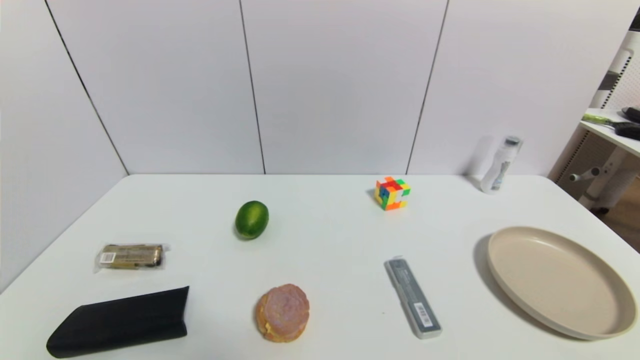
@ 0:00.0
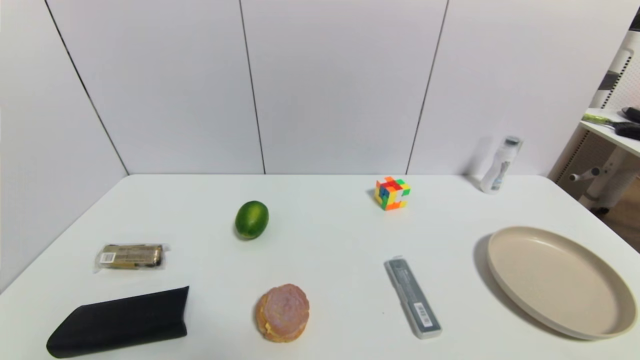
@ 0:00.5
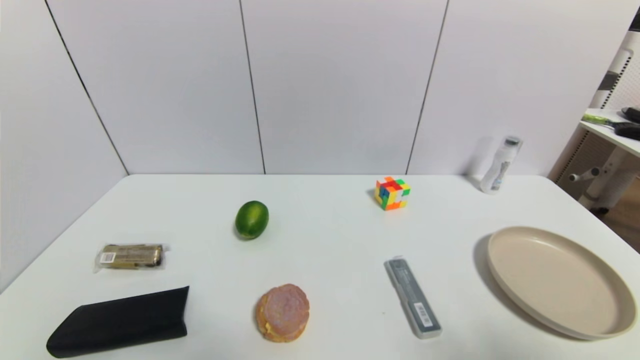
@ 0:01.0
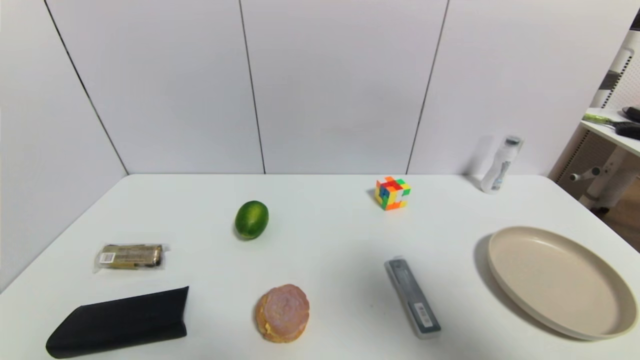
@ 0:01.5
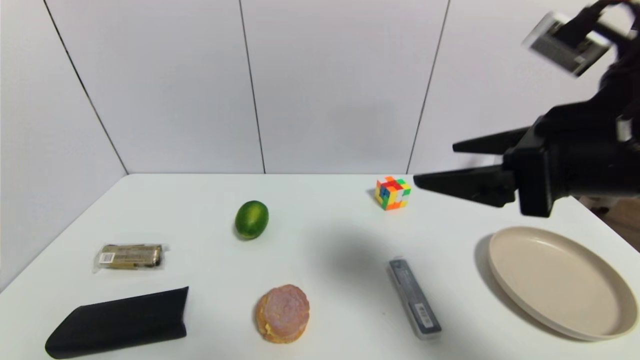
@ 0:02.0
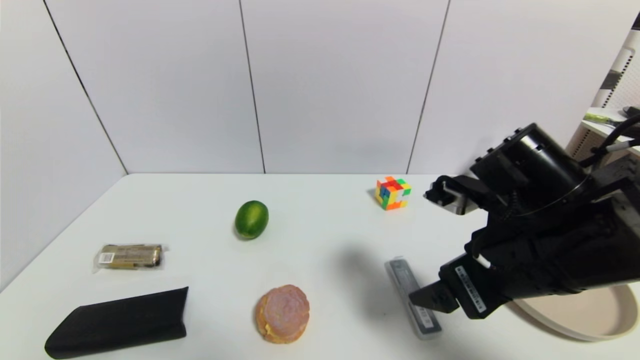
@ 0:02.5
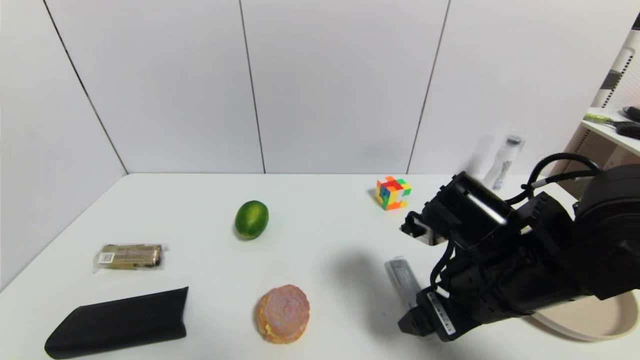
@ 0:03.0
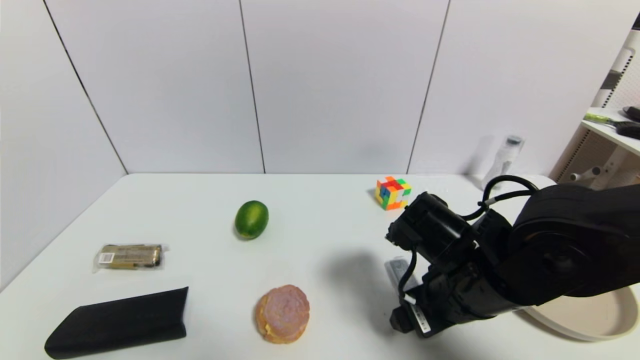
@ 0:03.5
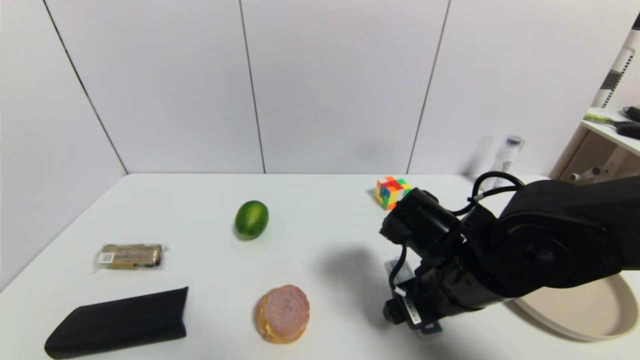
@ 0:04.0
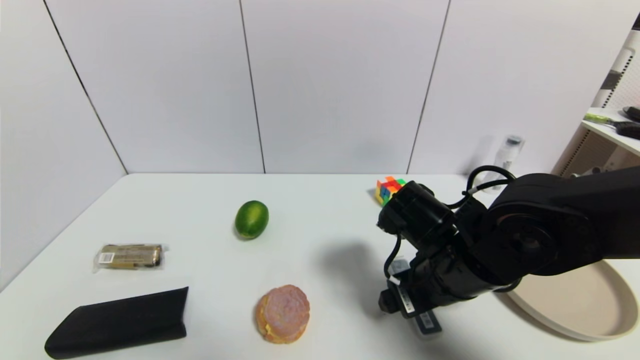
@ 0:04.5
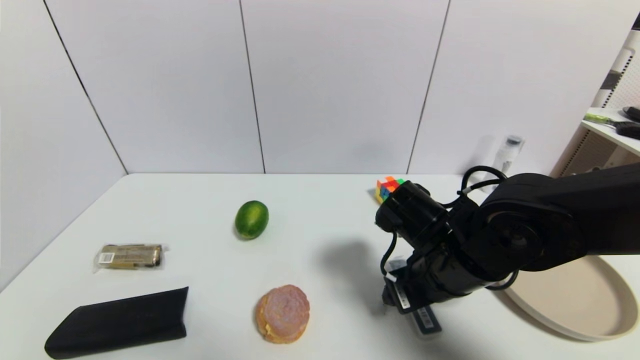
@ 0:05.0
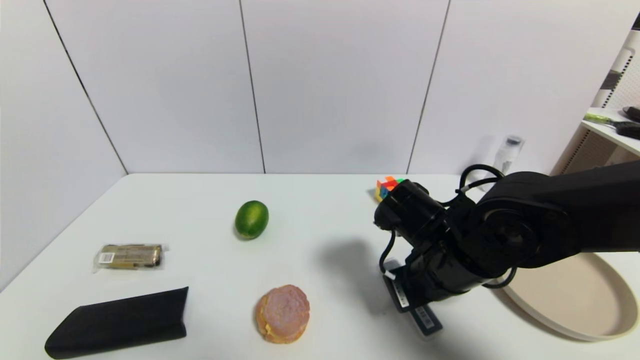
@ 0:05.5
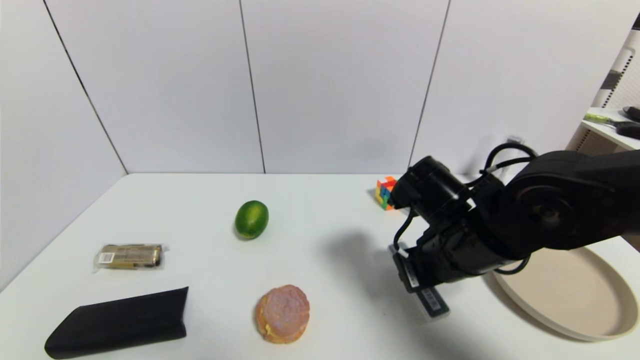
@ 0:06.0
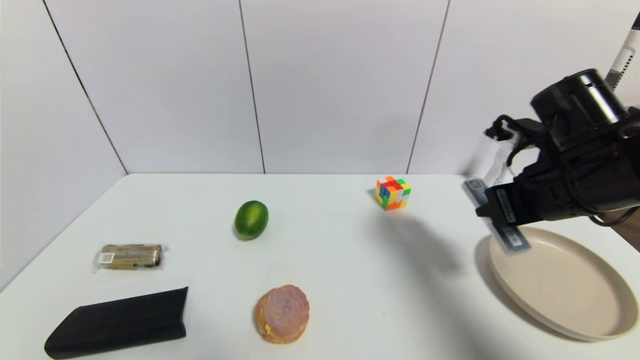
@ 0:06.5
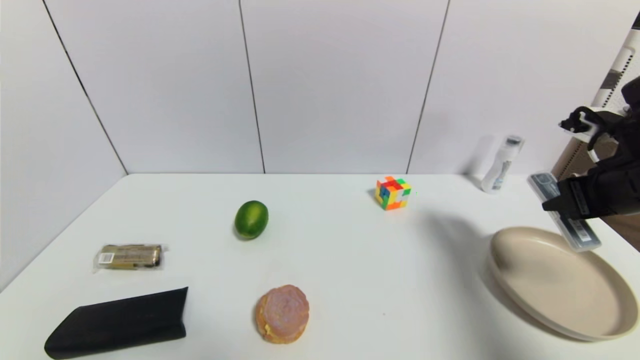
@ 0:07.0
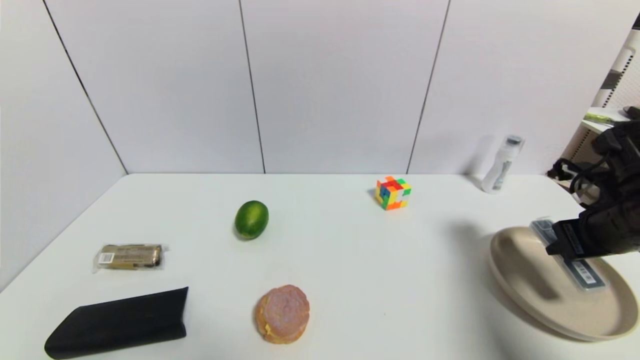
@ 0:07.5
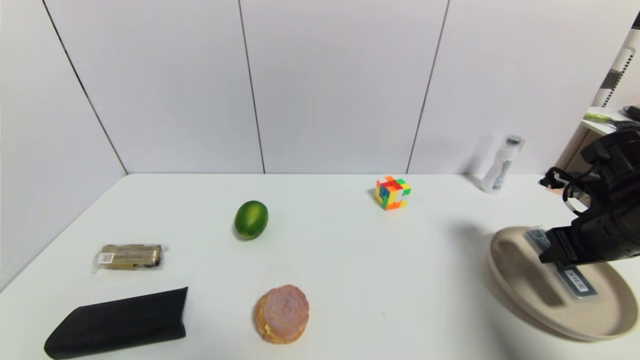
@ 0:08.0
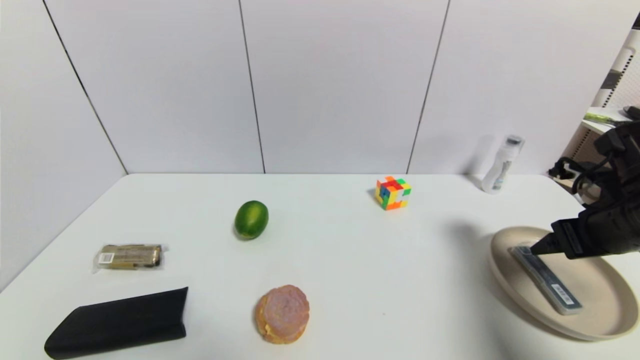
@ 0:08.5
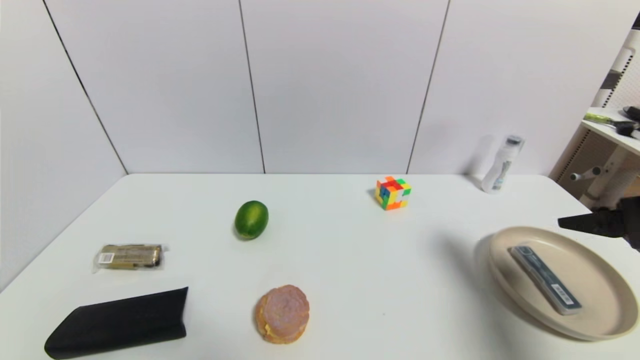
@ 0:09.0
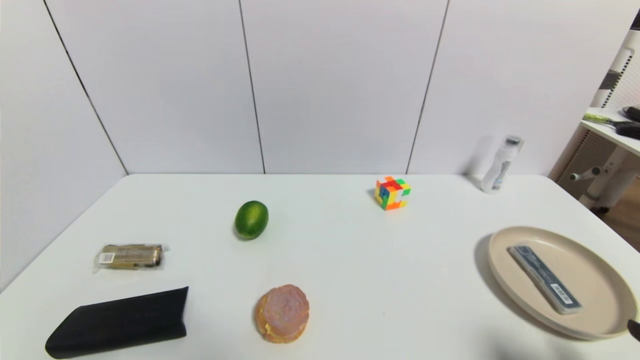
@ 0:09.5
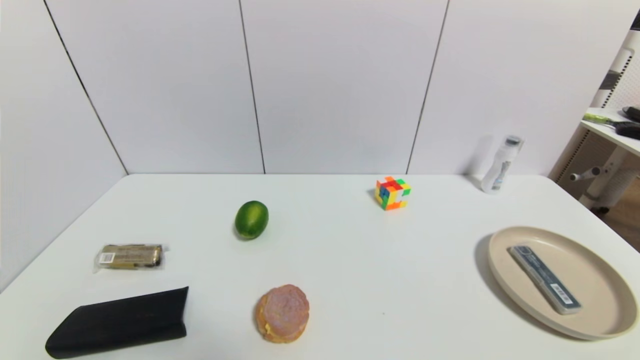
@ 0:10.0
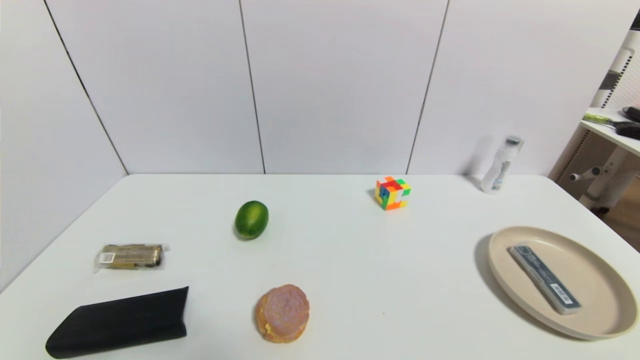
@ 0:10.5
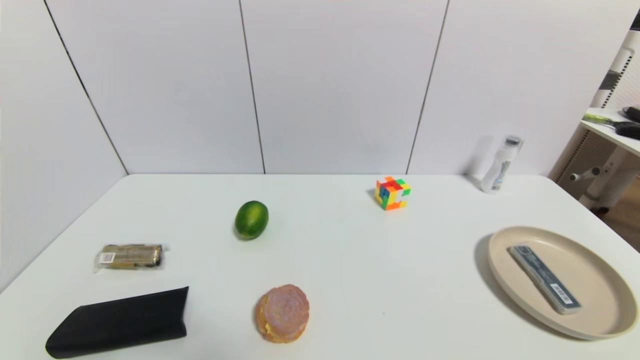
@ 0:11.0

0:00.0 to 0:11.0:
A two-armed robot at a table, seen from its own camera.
Task of the whole recording: use a gripper to pick the target object and place on the brown plate.
Step, 0:00.0 to 0:05.5: Grasp the compasses with the right gripper.
Step, 0:06.0 to 0:08.0: Place the compasses on the brown plate with the right gripper.
0:00.0 to 0:02.0: The right gripper travels upward, forward and to the left by roughly 35 cm.
0:02.0 to 0:03.5: The right gripper heads downward, covering about 15 cm.
0:03.5 to 0:05.5: The right gripper closes.
0:05.5 to 0:07.5: The right gripper shifts some 20 cm to the right.
0:07.5 to 0:09.0: The right gripper is displaced backward and upward by roughly 10 cm, and opens up.
0:09.0 to 0:11.0: The right gripper moves downward and backward, some 25 cm.

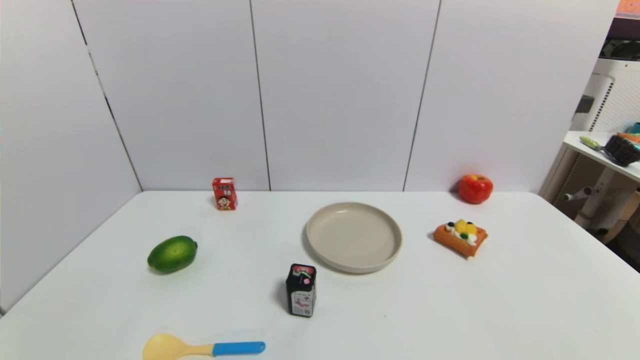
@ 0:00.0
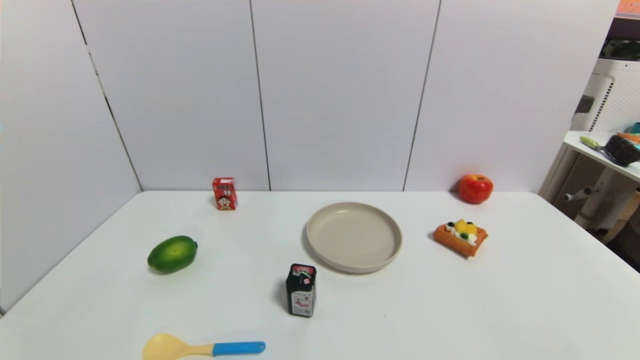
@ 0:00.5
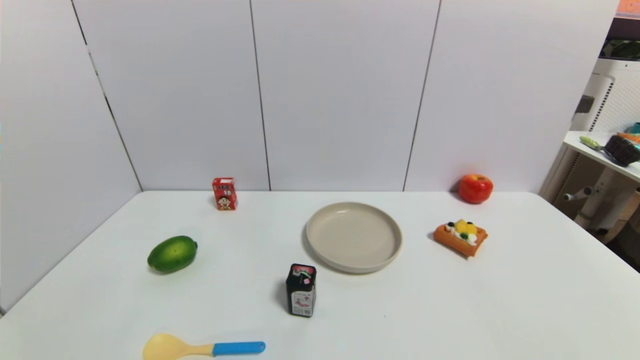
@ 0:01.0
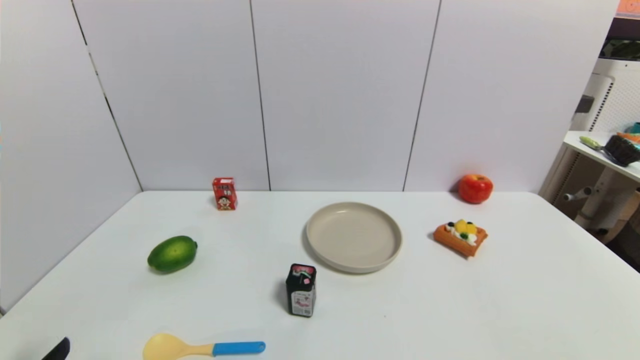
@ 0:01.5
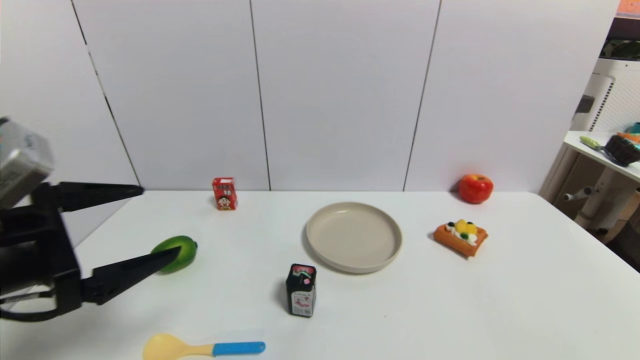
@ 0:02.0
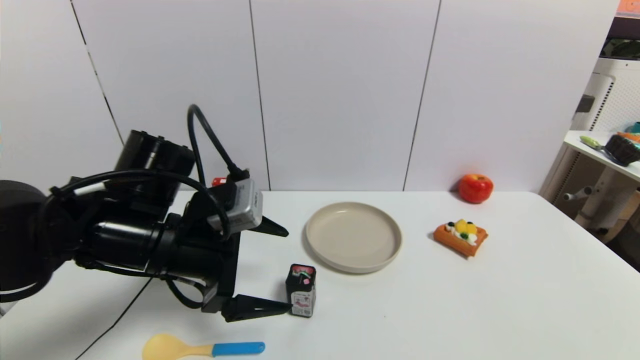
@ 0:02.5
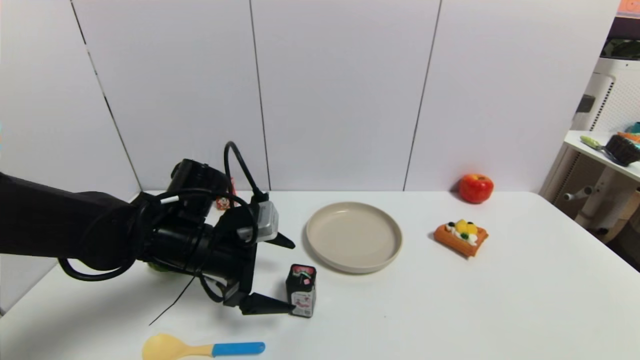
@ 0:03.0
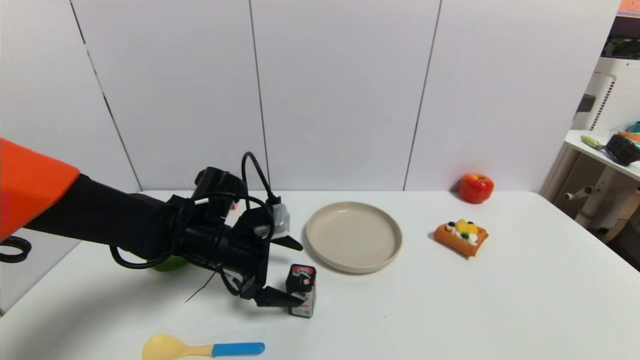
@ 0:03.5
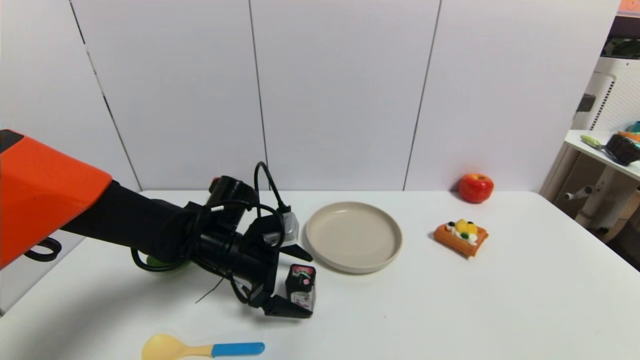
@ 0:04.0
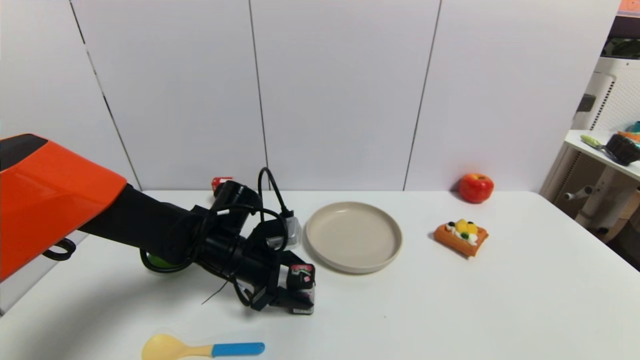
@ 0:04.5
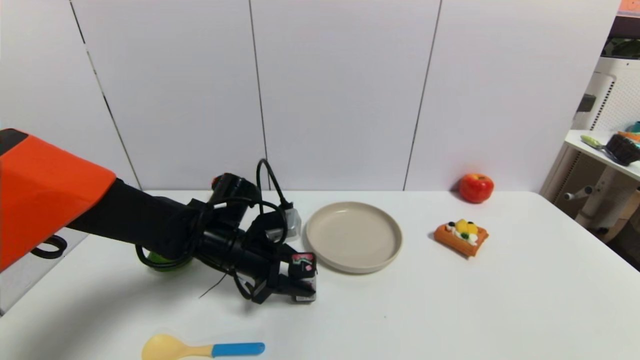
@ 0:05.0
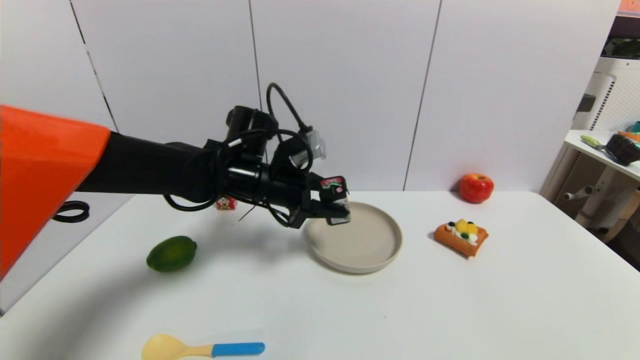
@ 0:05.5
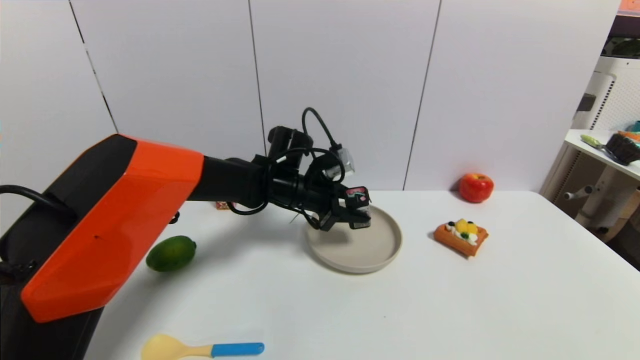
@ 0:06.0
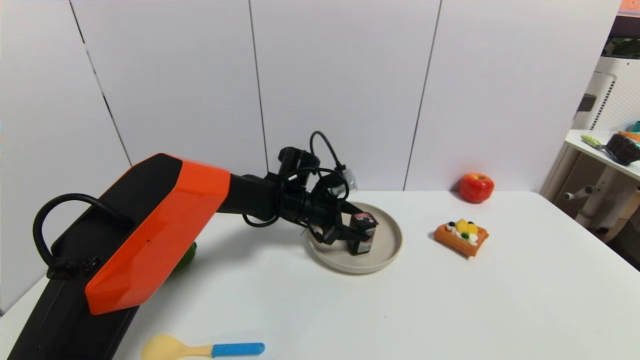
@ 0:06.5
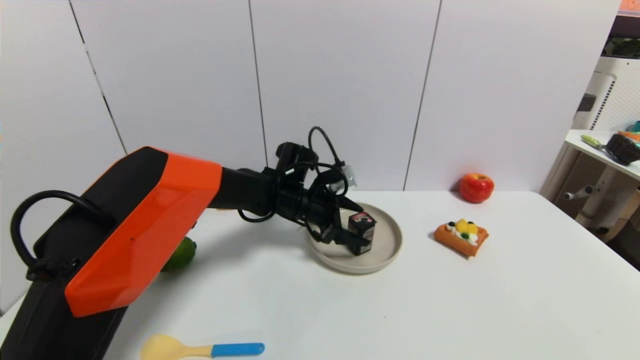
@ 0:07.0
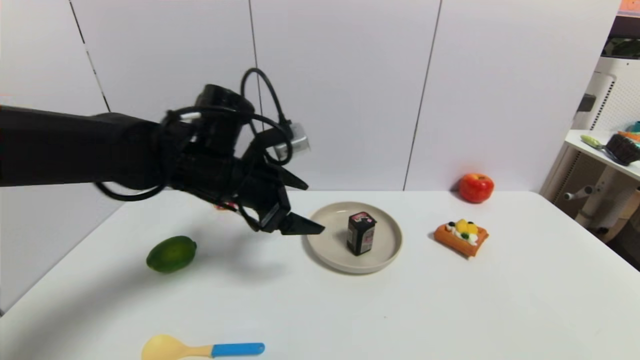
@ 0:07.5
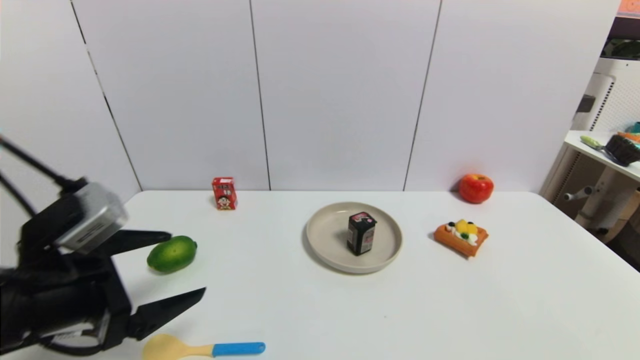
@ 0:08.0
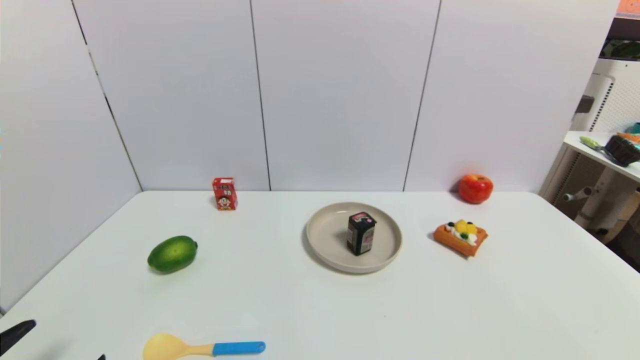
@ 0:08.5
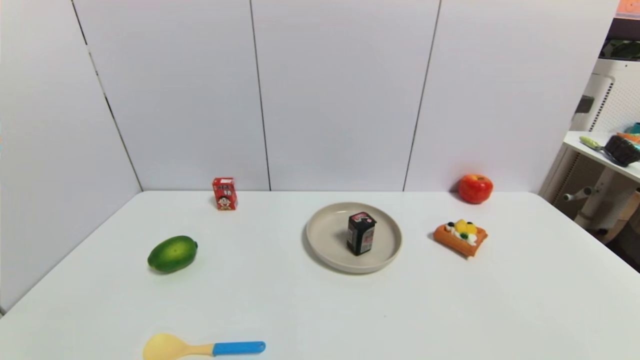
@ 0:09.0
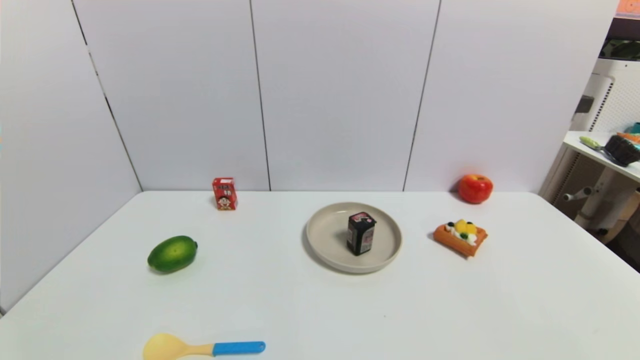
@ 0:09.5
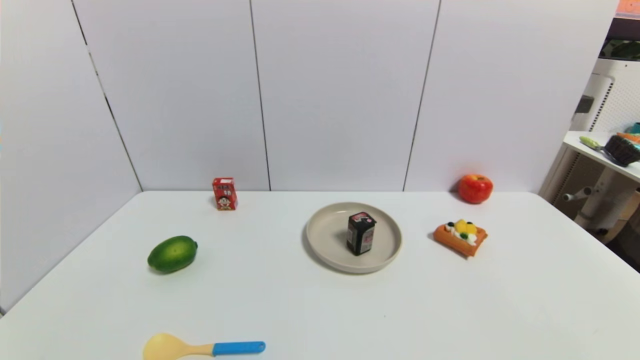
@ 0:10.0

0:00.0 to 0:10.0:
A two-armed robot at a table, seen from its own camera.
Task of the whole recording: use a gripper to pick the target object and place on the brown plate.
Step, 0:00.0 to 0:04.5: Grasp the square chewing gum with the left gripper.
Step, 0:05.0 to 0:07.0: Place the square chewing gum on the brown plate with the left gripper.
0:00.0 to 0:02.0: The left gripper shifts some 25 cm upward and forward.
0:02.0 to 0:04.0: The left gripper is displaced forward, downward and to the right by approximately 25 cm.
0:04.0 to 0:06.0: The left gripper travels forward and to the right by roughly 15 cm, and closes.
0:06.0 to 0:08.0: The left gripper moves backward and to the left, roughly 35 cm, and opens up.
0:08.0 to 0:10.0: The left gripper moves backward and downward, about 20 cm.
